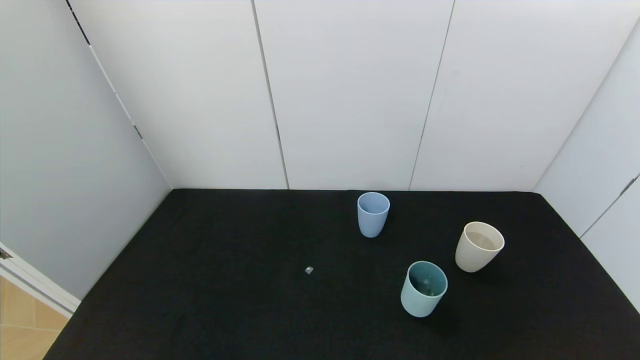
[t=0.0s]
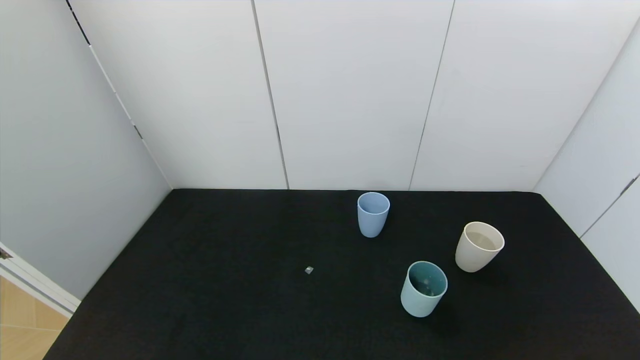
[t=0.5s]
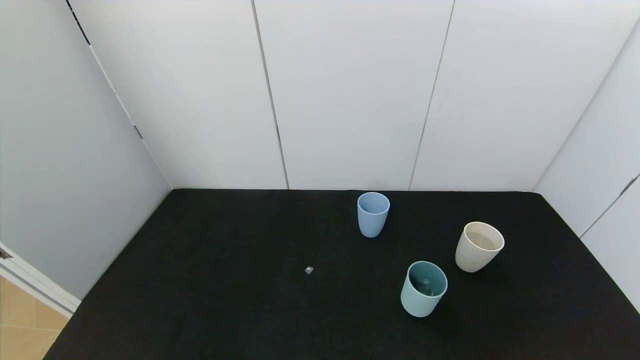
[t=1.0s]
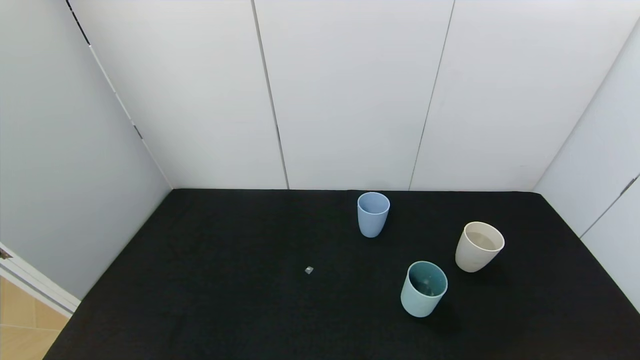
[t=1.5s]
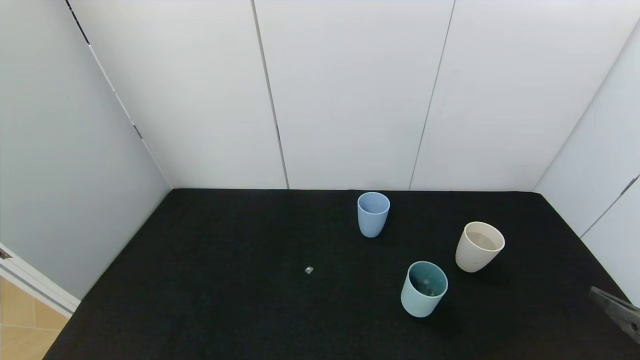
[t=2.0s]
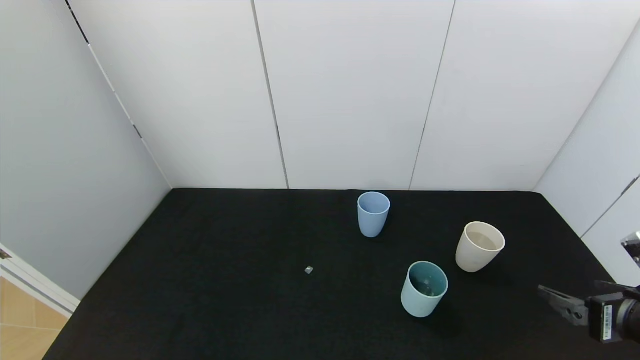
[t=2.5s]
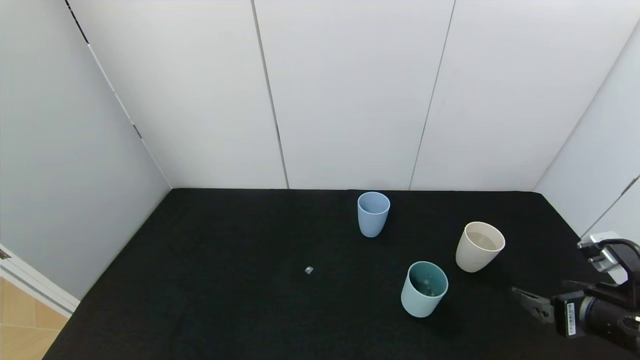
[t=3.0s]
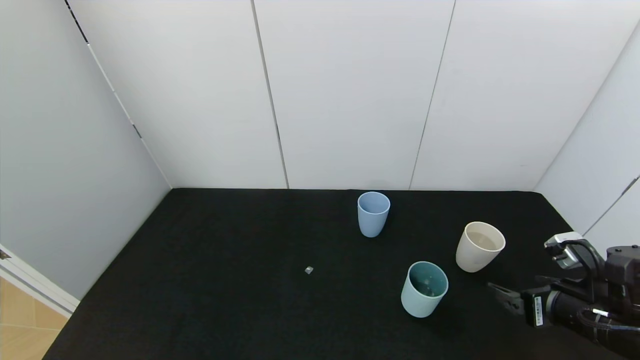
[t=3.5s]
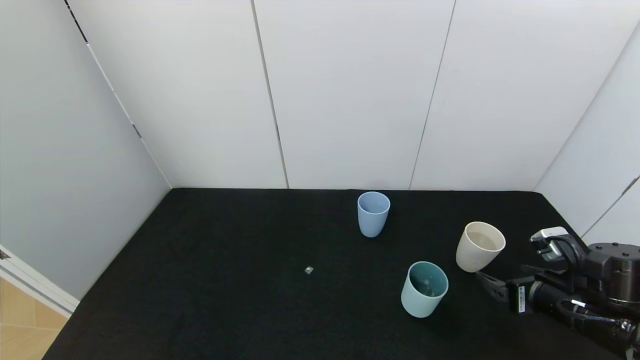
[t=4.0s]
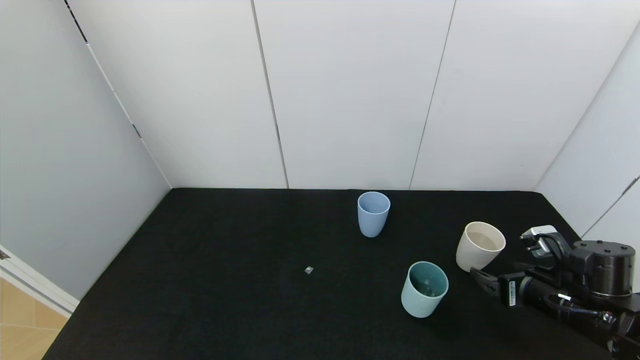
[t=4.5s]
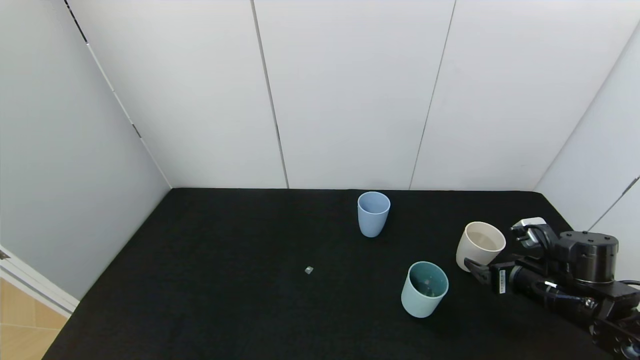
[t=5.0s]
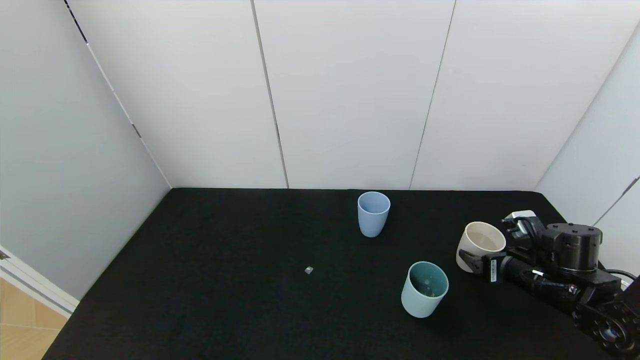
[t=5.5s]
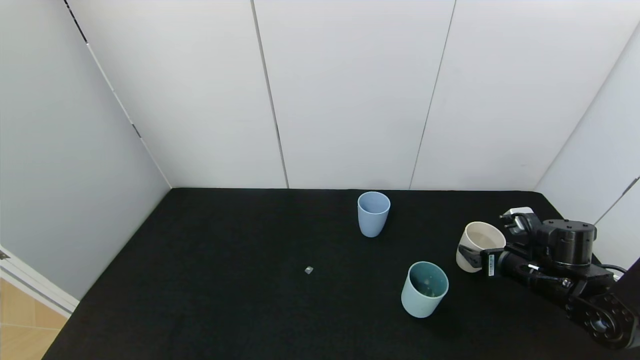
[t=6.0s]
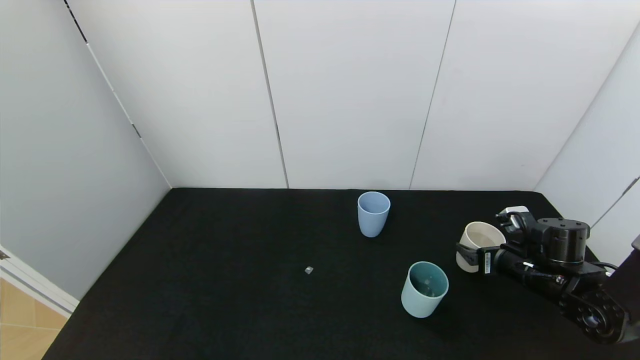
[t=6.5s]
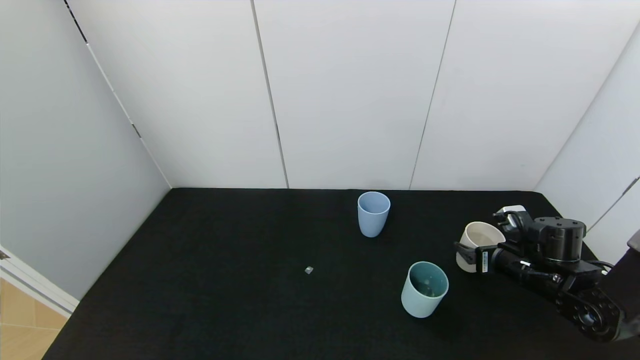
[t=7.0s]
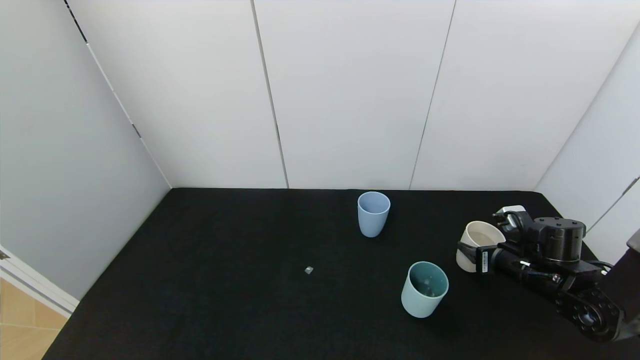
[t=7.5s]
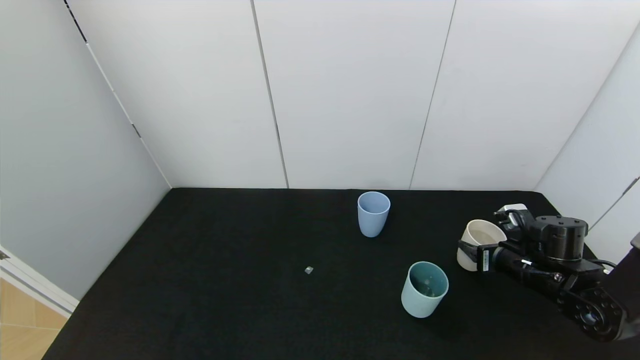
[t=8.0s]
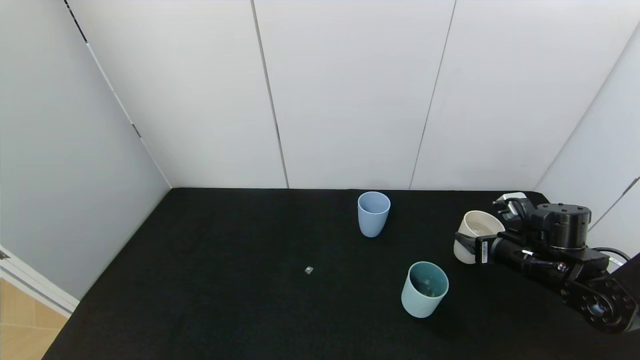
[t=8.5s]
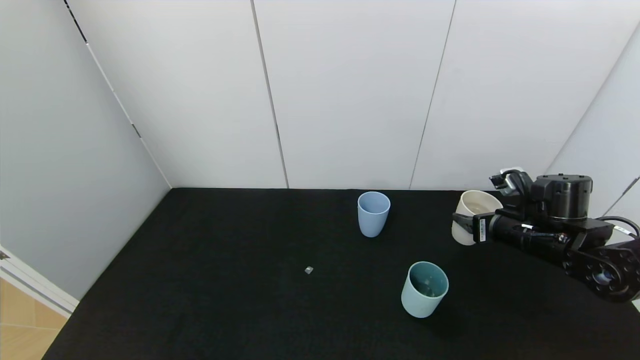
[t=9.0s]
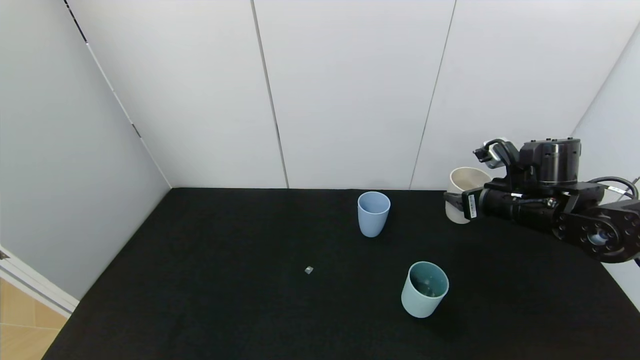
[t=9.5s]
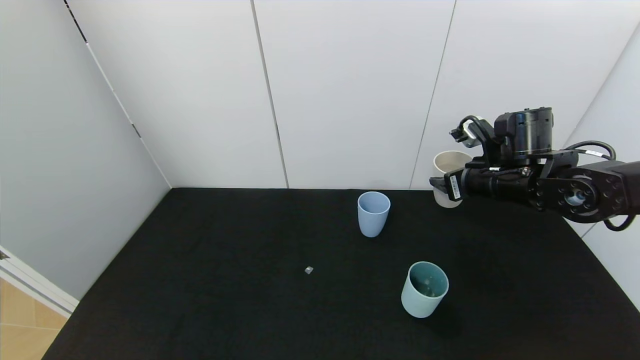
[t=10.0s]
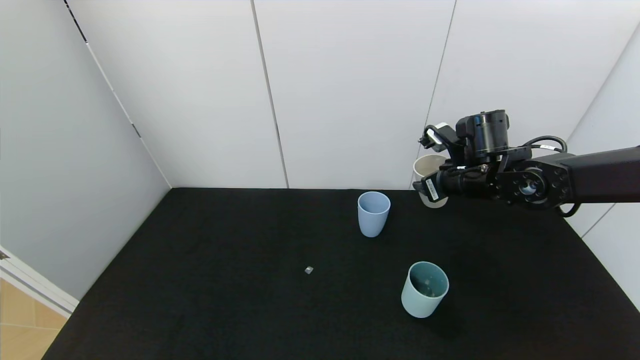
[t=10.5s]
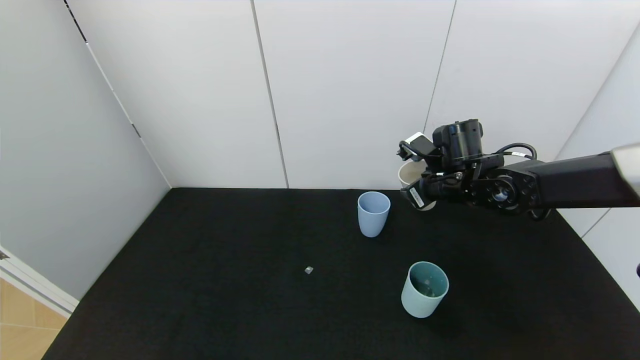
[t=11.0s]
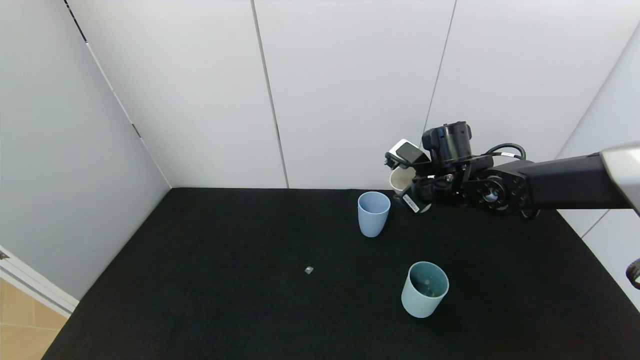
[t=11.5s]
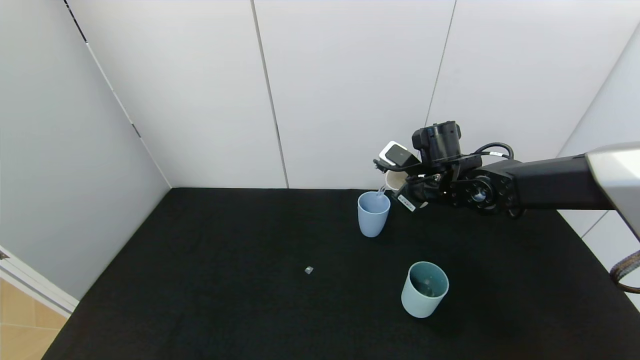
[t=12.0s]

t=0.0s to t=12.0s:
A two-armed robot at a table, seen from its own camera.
Task of the whole recording: use the gripper to pour the water into the other two cups on black table.
Step, t=0.0s to t=7.5s: Grasp the white cup with the right gripper.
t=2.0s to t=4.0s: The right gripper moves forward and downward, approximately 15 cm.
t=4.0s to t=6.0s: The right gripper moves forward, roughly 10 cm.
t=6.0s to t=8.0s: The right gripper closes.
t=8.0s to t=10.0s: The right gripper moves upward and to the left, some 15 cm.
t=10.0s to t=12.0s: The right gripper is displaced to the left by about 10 cm.

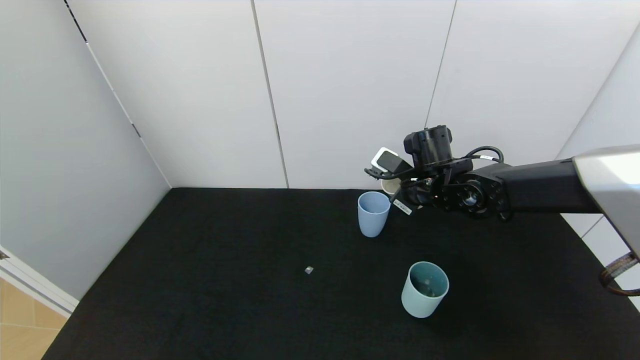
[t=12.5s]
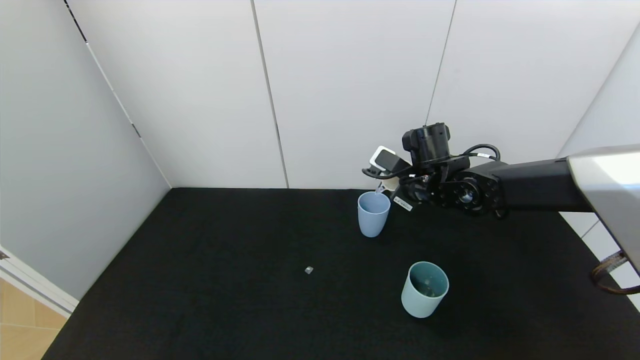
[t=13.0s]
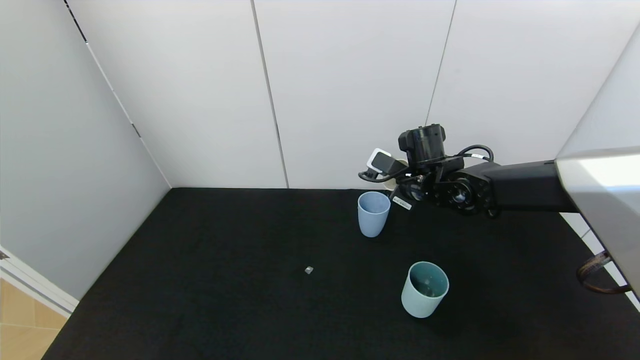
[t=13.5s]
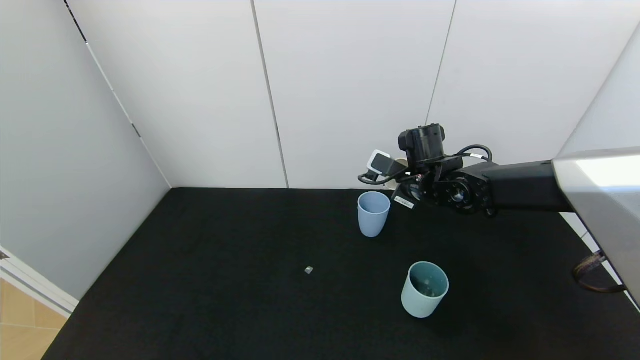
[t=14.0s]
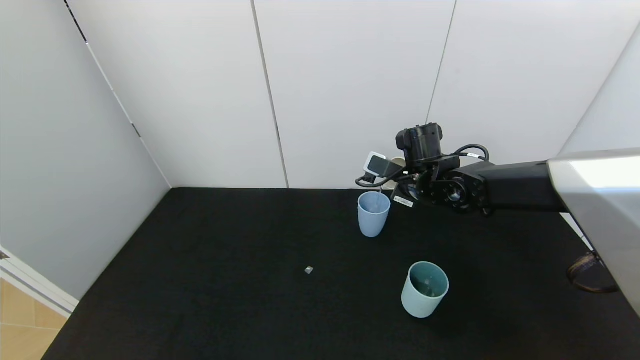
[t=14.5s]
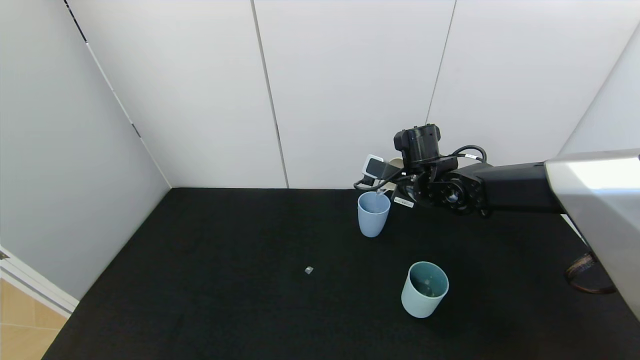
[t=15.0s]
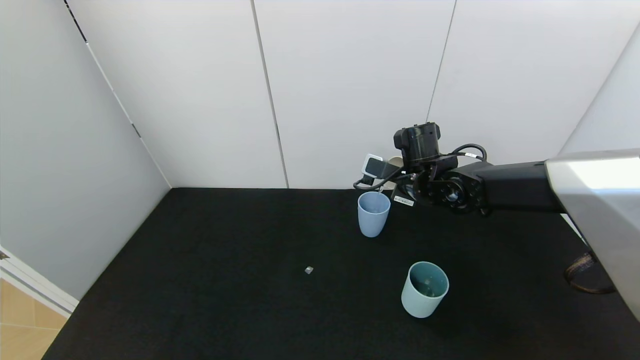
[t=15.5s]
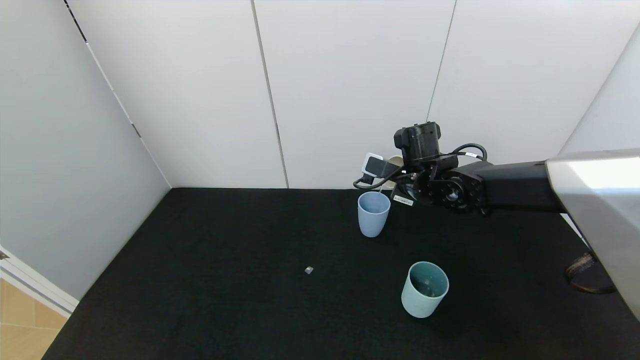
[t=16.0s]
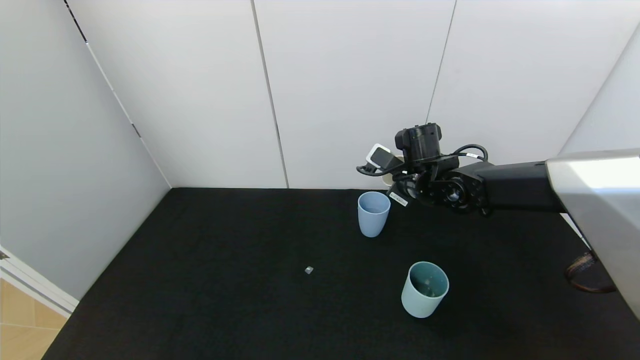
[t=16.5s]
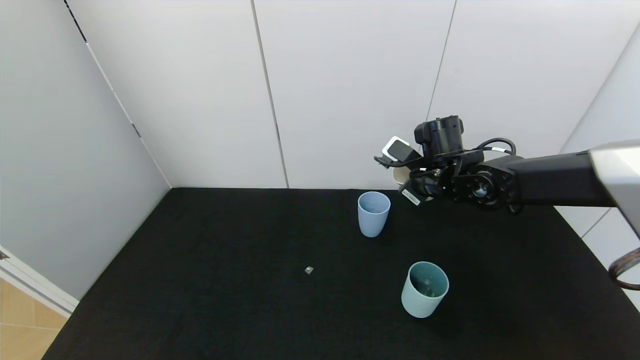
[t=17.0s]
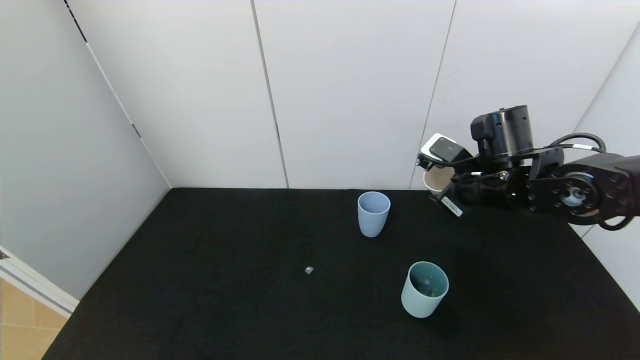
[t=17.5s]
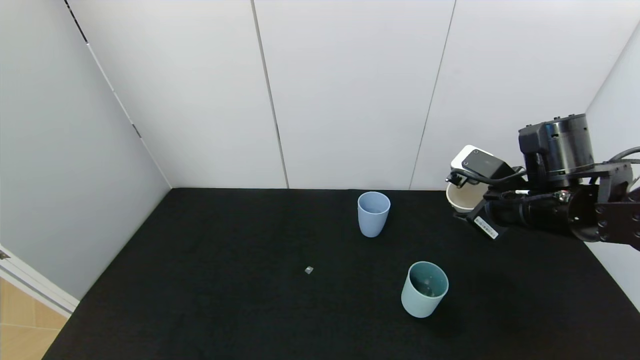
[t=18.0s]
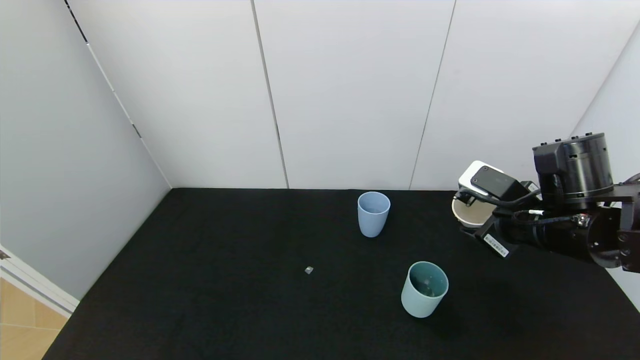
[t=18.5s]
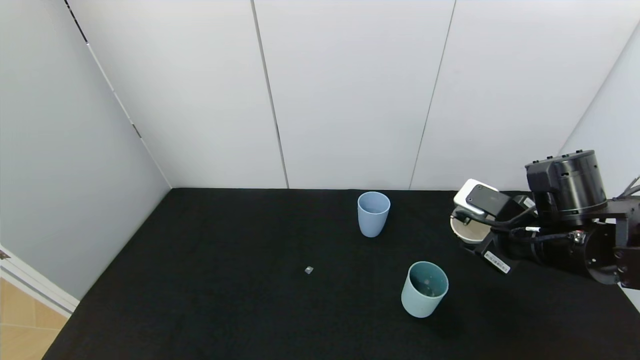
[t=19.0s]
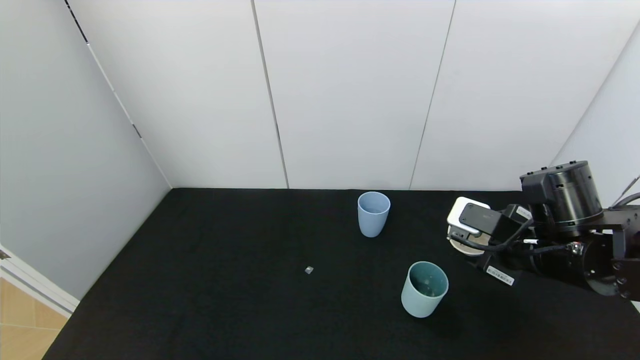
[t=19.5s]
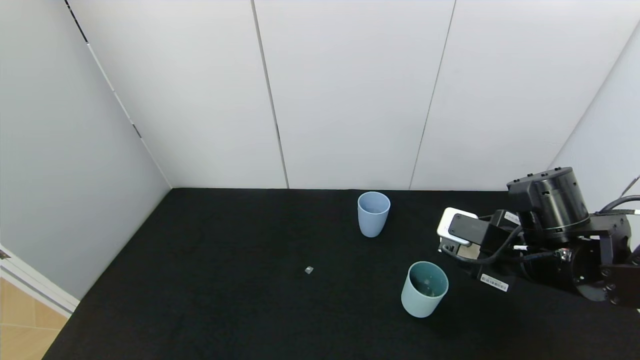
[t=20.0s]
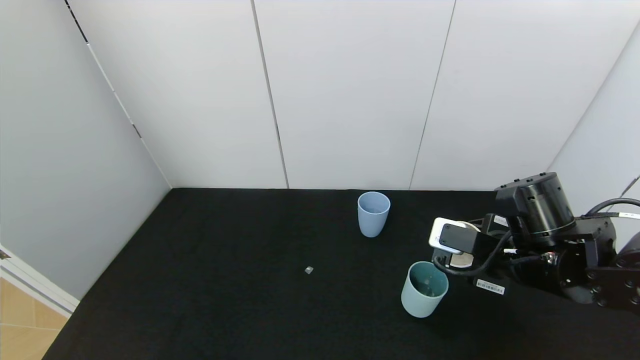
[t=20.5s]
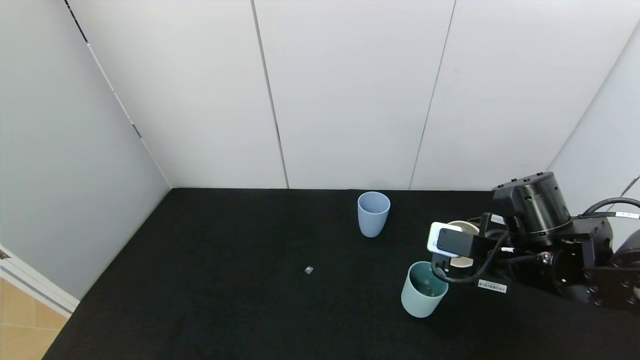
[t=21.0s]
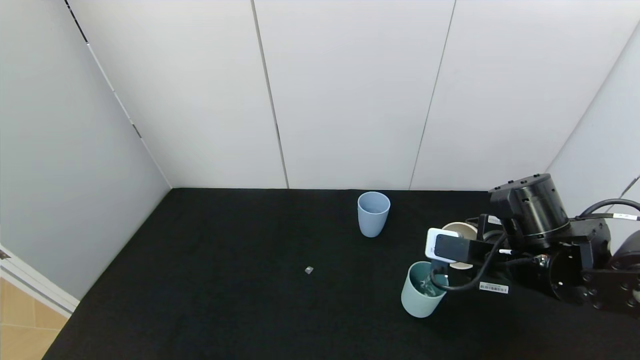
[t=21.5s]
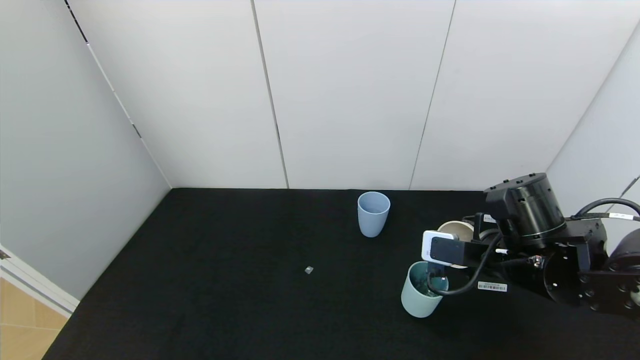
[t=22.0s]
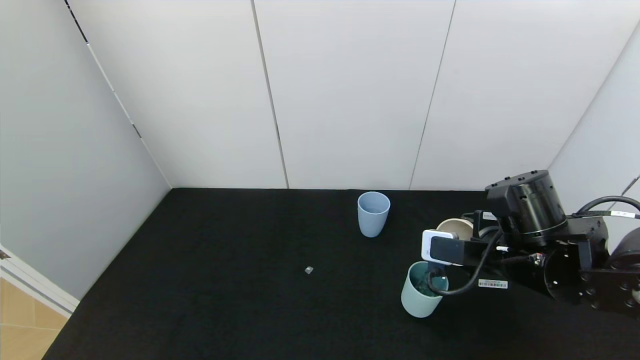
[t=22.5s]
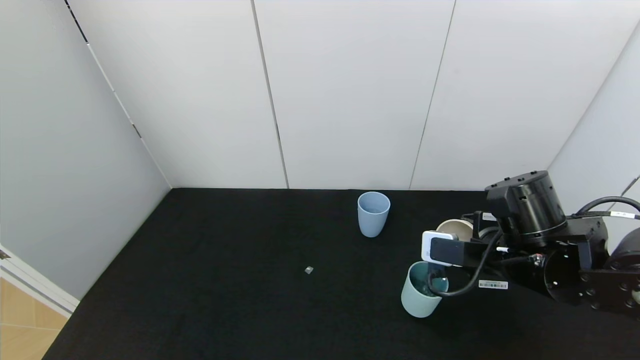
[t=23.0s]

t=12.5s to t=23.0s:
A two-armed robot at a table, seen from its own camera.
Task of the whole recording: use the gripper to pour the water into the other two cups on black table.
Step, t=12.5s to t=17.0s: Pour water from white cup to blue cup with the right gripper.
t=12.5s to t=14.5s: The grippers move only a little.
t=14.5s to t=16.5s: The grippers stay close to where they were, moving slightly.
t=16.5s to t=19.0s: The right gripper moves backward and to the right, about 20 cm.
t=21.0s to t=23.0s: The grippers move only a little.
